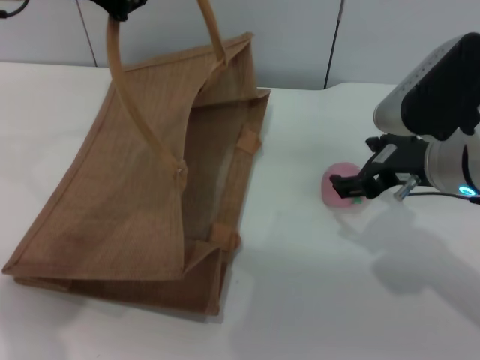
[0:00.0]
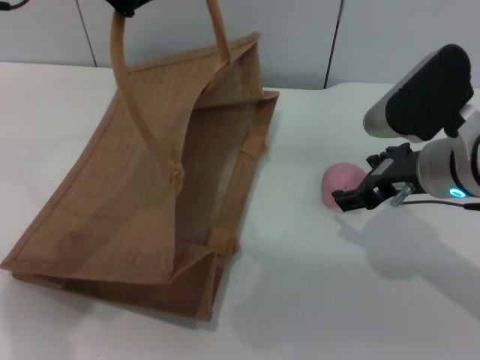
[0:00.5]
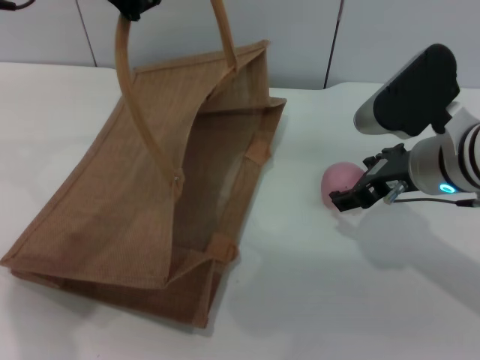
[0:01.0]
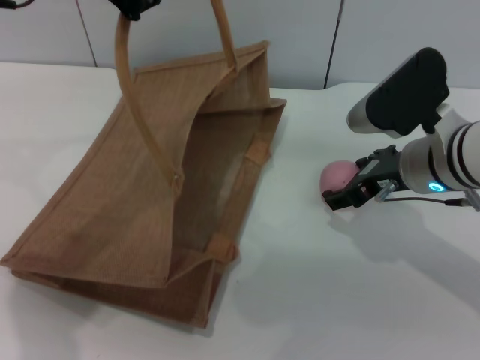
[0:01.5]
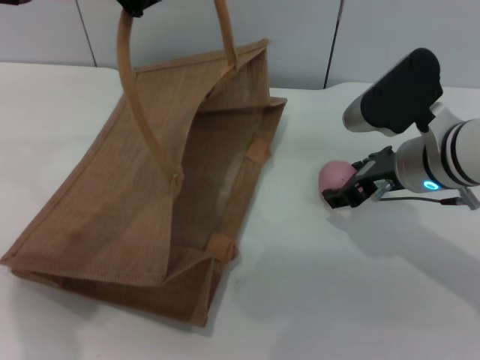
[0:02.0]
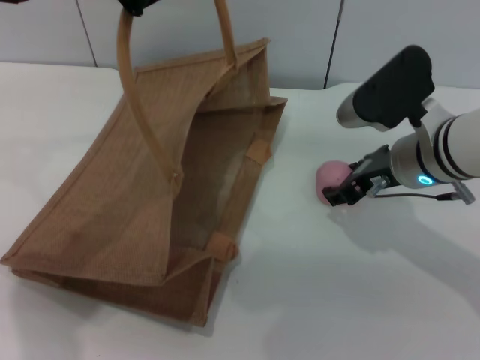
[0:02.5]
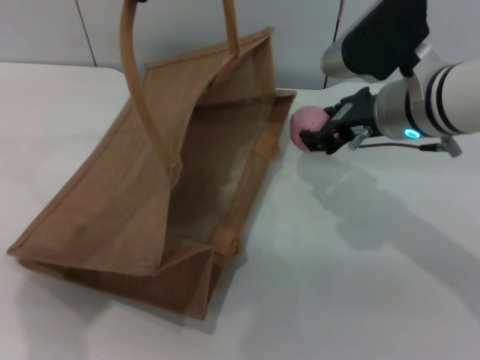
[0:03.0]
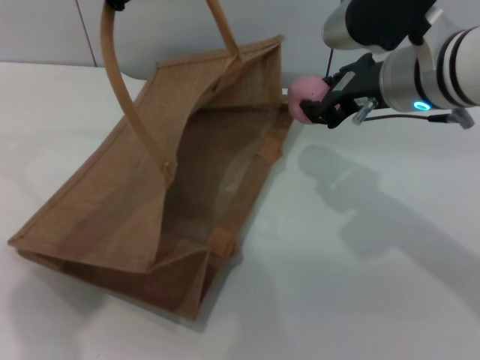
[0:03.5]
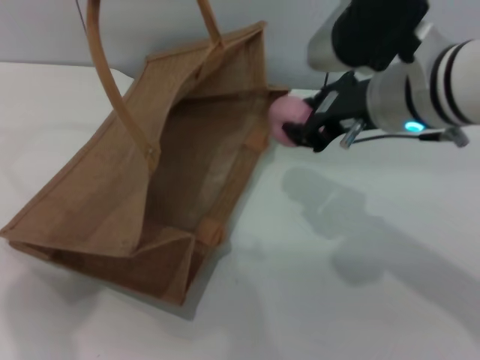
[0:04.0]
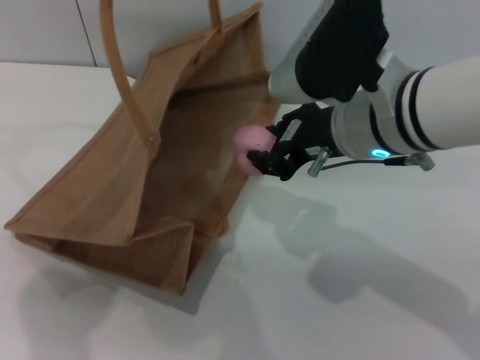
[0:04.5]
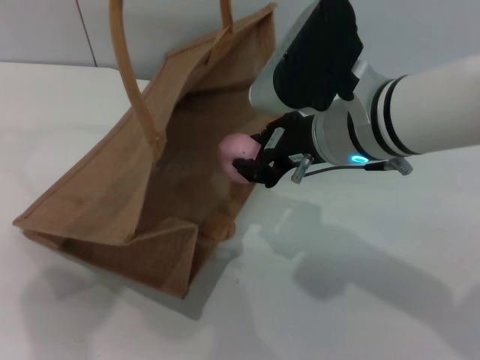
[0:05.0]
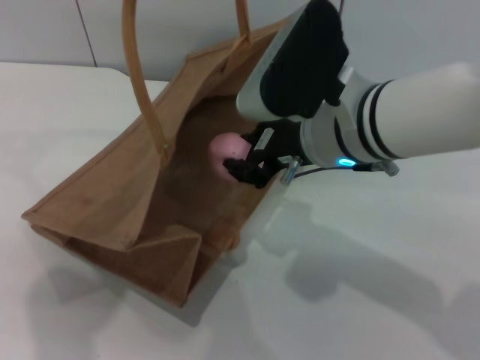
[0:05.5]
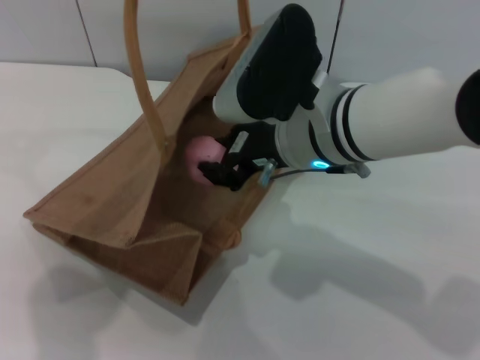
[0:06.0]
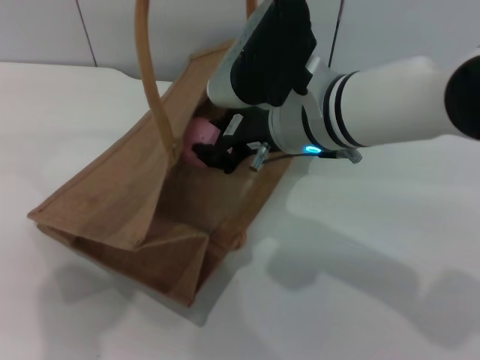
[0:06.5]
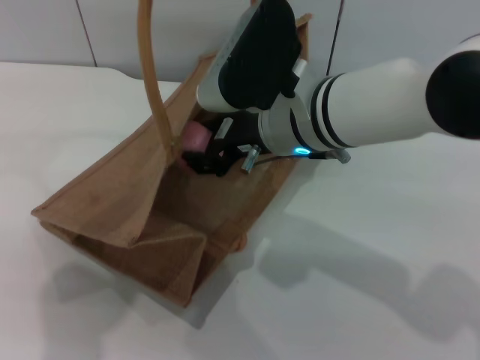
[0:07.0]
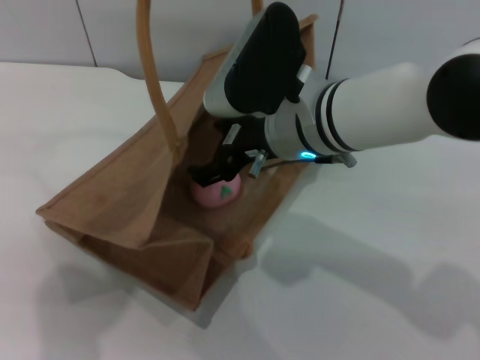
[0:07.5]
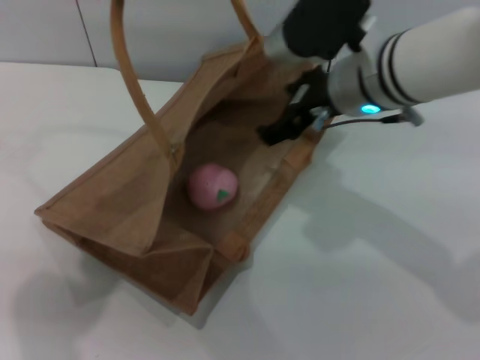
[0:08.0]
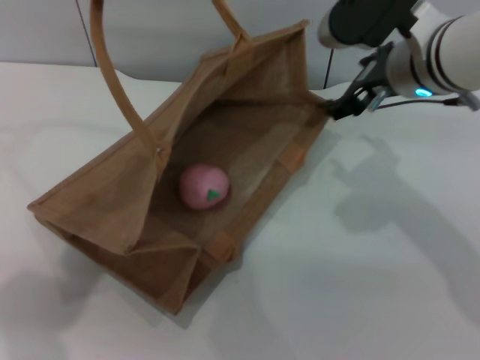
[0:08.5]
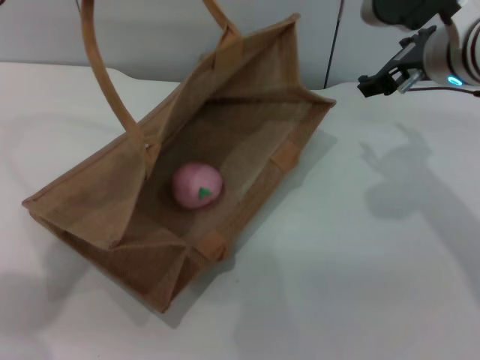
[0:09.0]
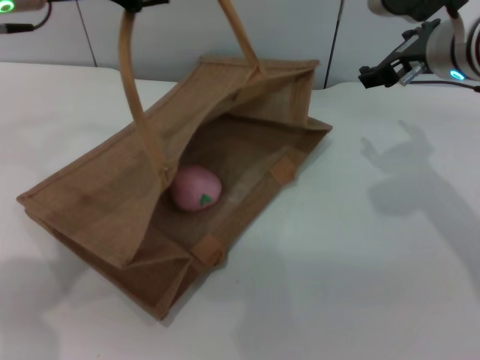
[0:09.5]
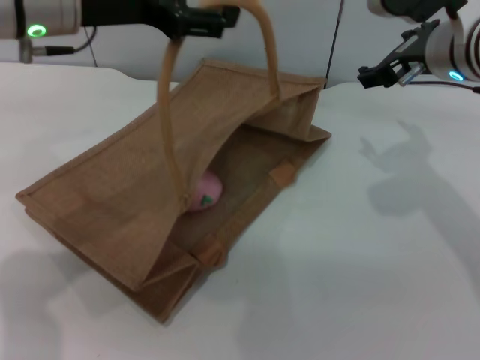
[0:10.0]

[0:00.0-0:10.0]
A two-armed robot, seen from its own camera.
Task of the whole recording: pick up the peach from the table and place it in the brown handbag.
Step, 0:00.0 to 0:02.5: Pick up the peach with the right gripper.
Step, 0:03.0 to 0:07.5: Place the peach into the woven bag with the right gripper.
0:00.0 to 0:02.0: The right gripper moves about 5 cm.
0:02.0 to 0:04.0: The right gripper heads upward, covering some 10 cm, and closes its fingers.
0:04.0 to 0:06.0: The right gripper moves to the left, about 5 cm.
0:06.0 to 0:08.0: The right gripper changes place by some 5 cm, and opens its fingers.
0:08.0 to 0:10.0: The right gripper is displaced to the right by about 10 cm, while the left gripper travels downward by approximately 5 cm, and opens its fingers.

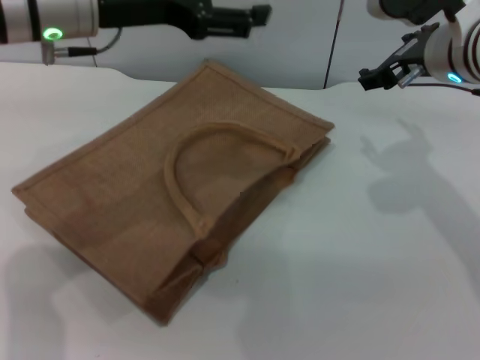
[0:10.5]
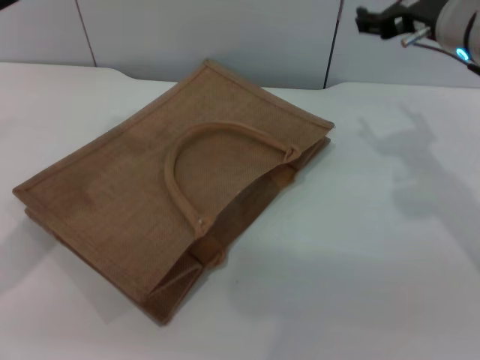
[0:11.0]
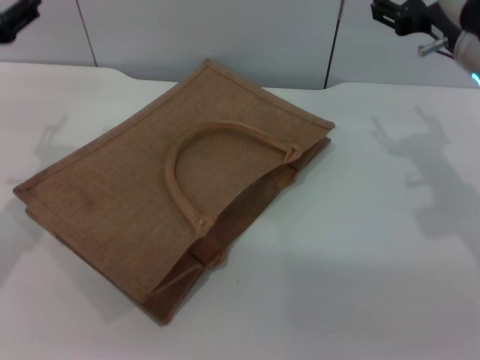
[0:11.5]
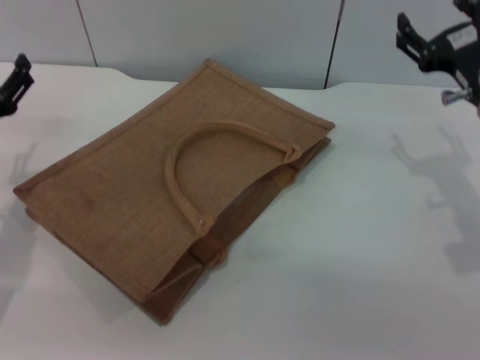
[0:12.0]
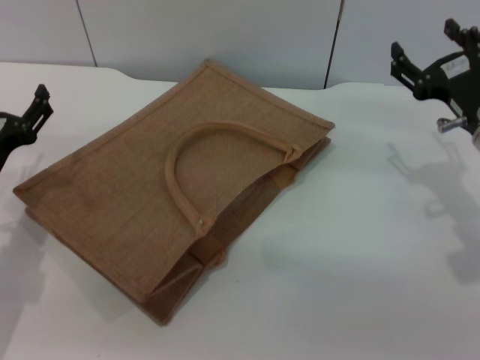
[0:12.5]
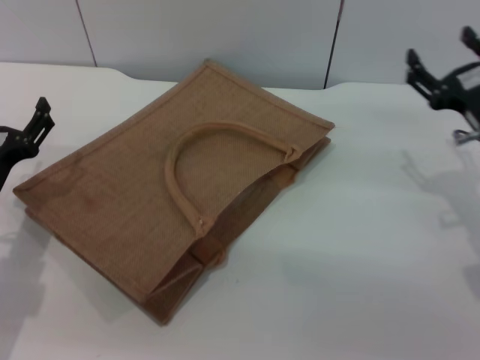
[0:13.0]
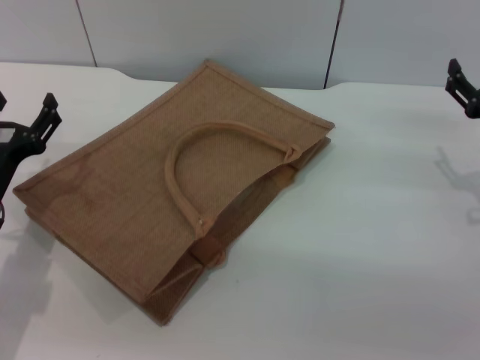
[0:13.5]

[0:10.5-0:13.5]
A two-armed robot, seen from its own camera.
Task of the whole recording: pick up the peach from the table and place it in the brown handbag.
0:10.5 to 0:12.0: The right gripper goes some 10 cm downward and to the right. The left gripper travels downward, to the left and backward by some 25 cm.
0:12.0 to 0:13.5: The left gripper ends up roughly 5 cm from where it was; the right gripper goes some 5 cm to the right.
